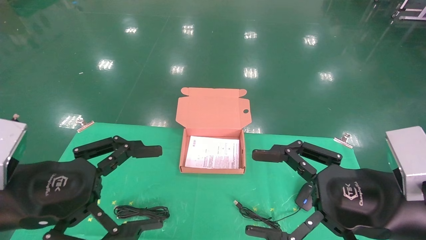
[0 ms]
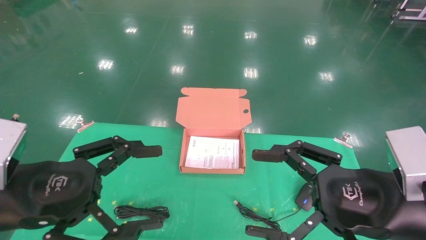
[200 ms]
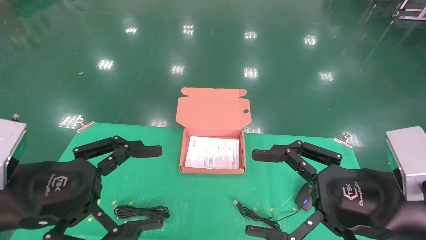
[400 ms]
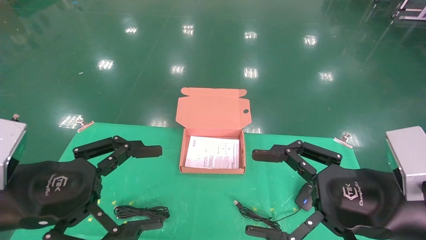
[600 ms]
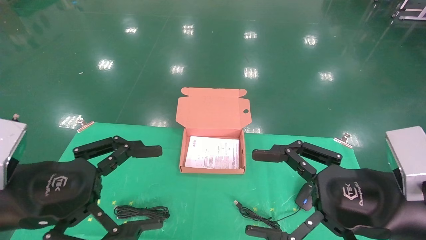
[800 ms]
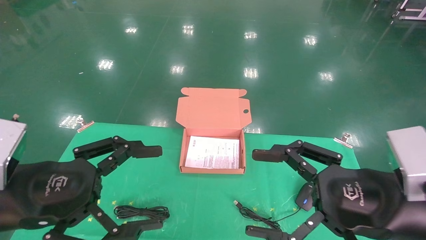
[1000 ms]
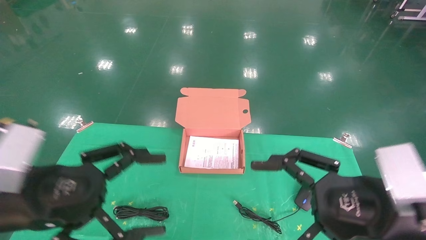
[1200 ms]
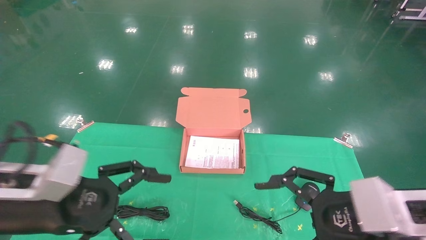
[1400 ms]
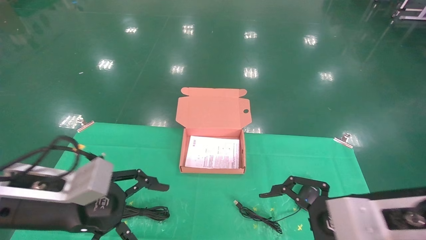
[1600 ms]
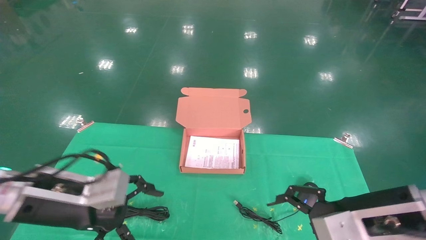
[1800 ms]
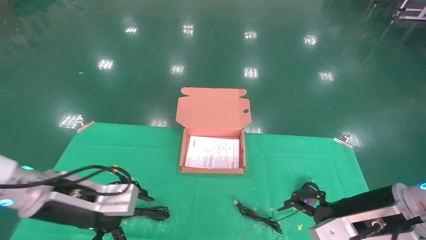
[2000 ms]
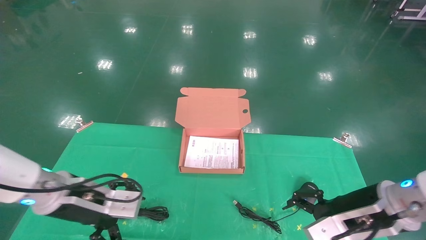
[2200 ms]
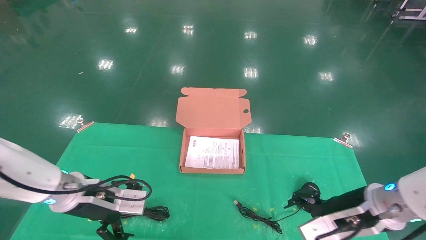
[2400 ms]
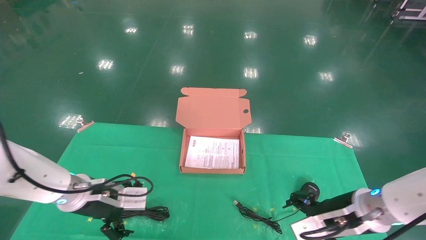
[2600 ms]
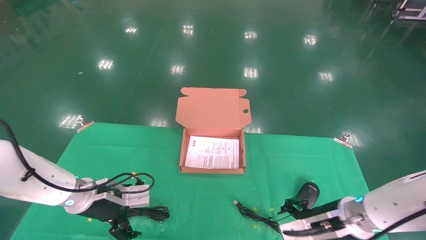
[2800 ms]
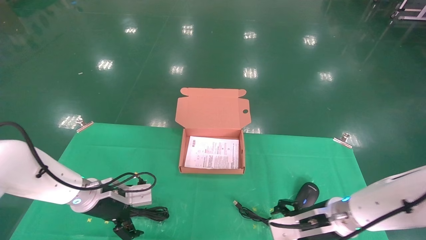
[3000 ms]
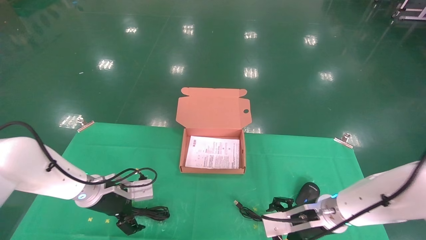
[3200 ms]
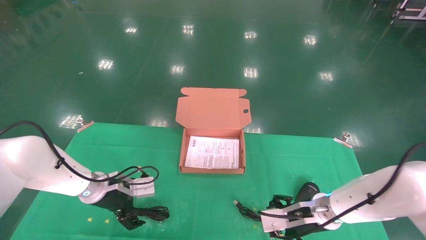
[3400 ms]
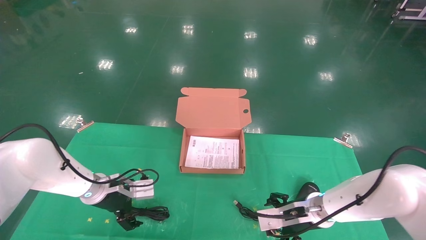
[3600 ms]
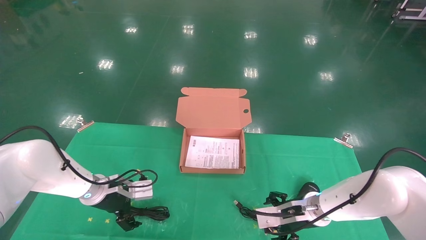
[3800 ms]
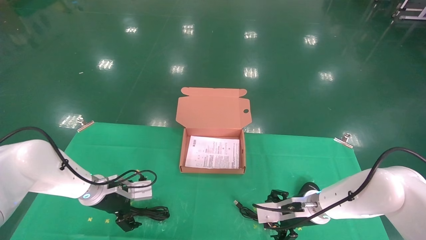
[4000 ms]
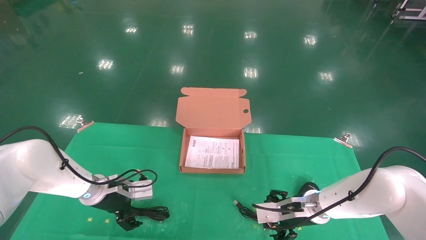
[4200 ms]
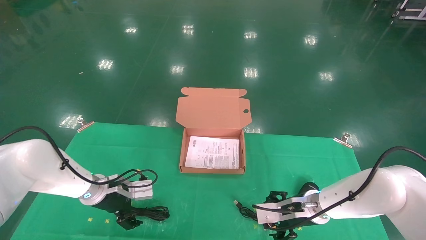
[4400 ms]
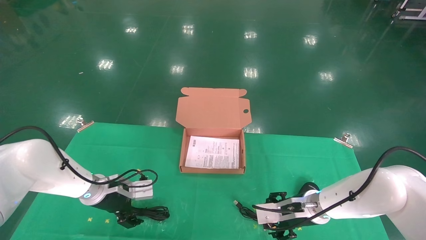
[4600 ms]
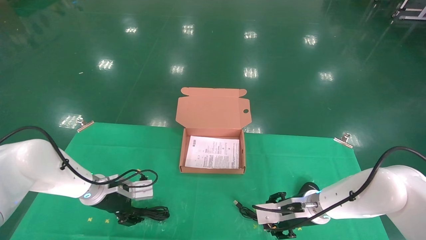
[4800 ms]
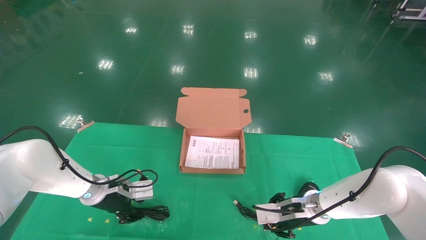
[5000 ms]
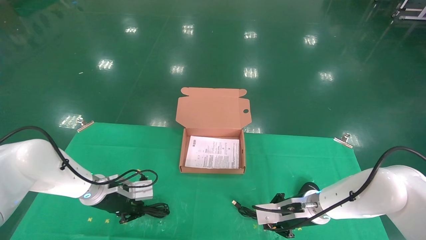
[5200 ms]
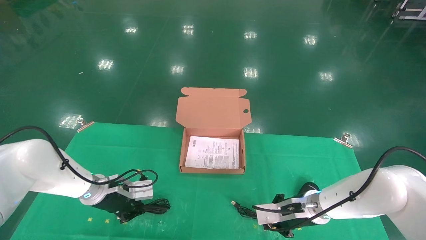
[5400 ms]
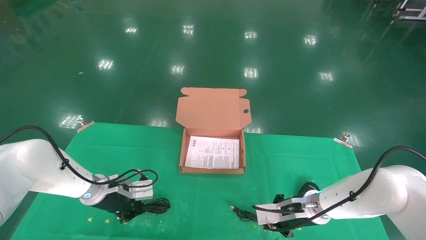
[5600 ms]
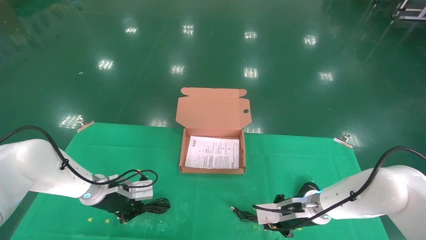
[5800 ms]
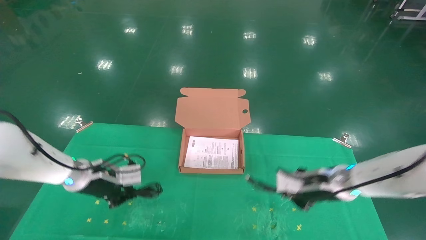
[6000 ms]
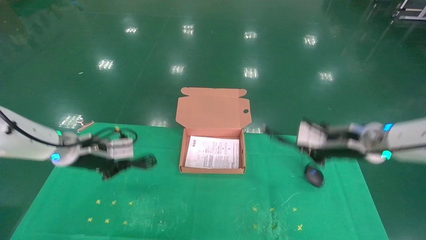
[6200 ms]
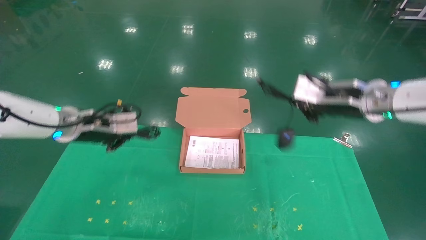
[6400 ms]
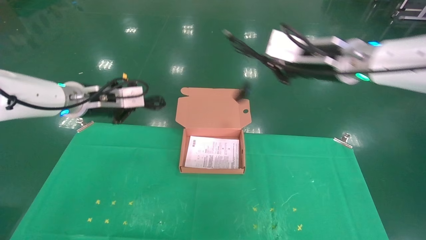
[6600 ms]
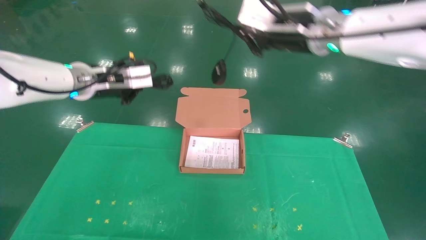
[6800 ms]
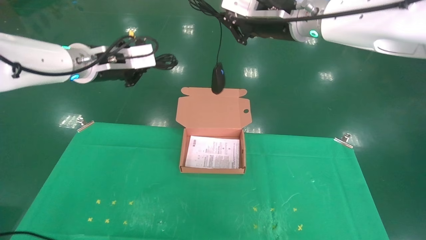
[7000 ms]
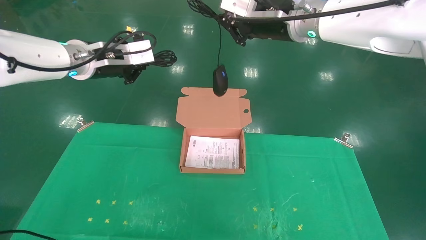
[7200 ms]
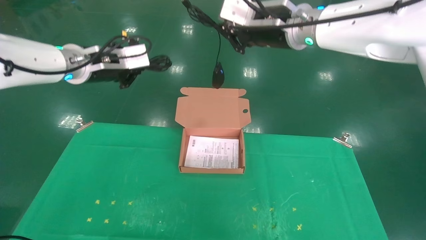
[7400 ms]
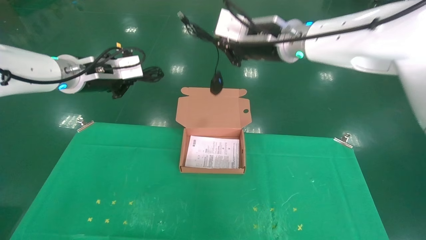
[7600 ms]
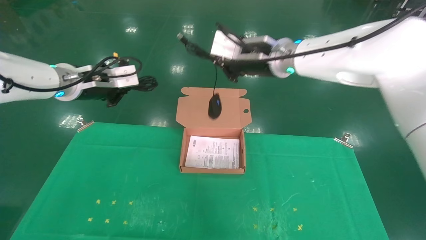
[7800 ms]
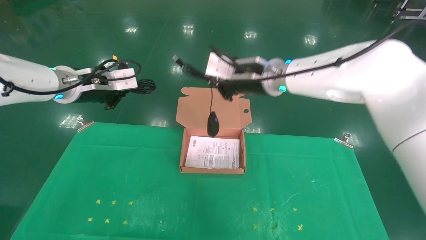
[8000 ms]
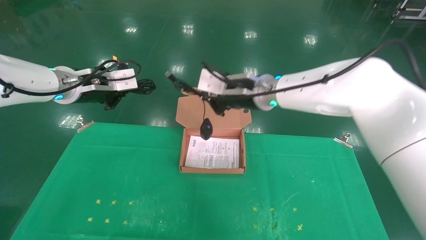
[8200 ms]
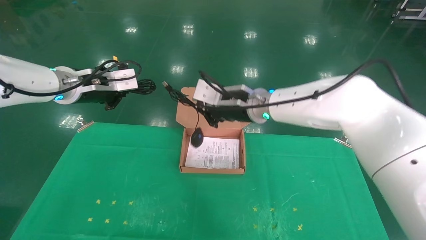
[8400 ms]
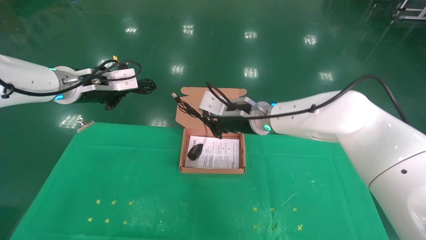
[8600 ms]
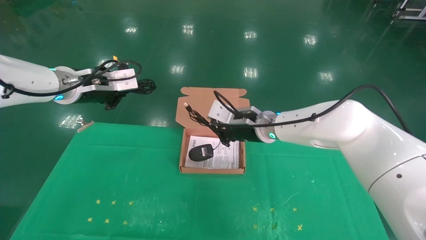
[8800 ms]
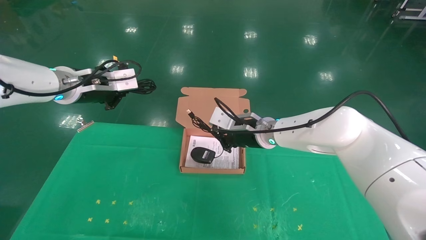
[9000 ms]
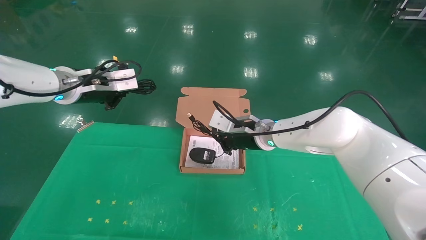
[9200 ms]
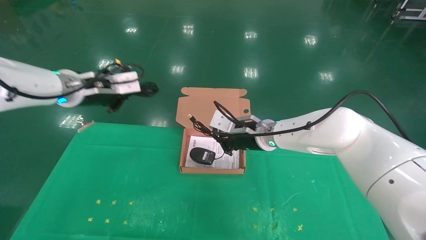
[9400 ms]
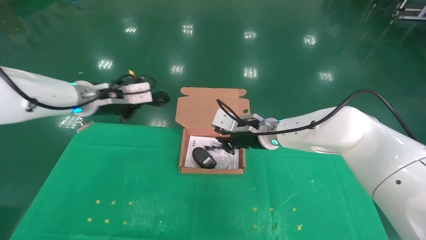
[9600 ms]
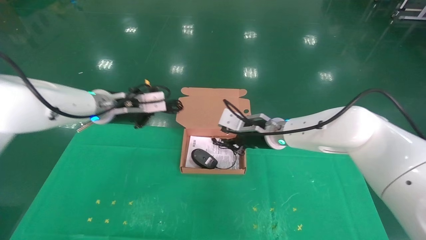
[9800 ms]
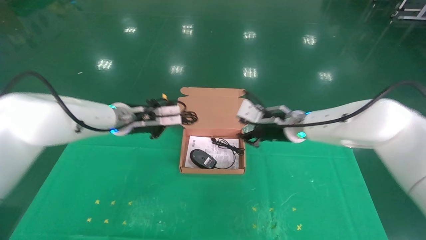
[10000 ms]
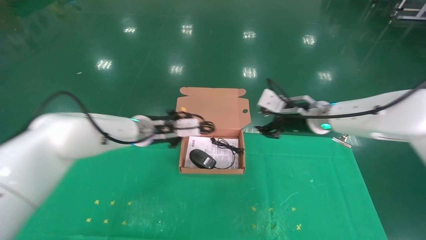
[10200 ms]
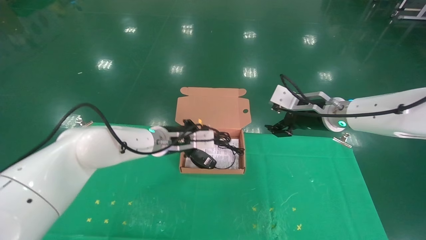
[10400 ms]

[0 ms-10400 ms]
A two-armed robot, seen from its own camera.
Task of the whole recording: grasp data cable left put into box grasp mouse right put into box.
Step, 1200 ms to 5800 ms: Grab and pick up both the mouse and power cord from the accessory packaging area at the same time.
1400 ms to 3000 ms: Both grippers travel together forward and downward, approximately 20 cm.
3000 ms to 4400 ms: The right gripper goes roughly 5 cm forward.
4400 ms to 6000 ms: The grippers both shift upward by some 10 cm. The right gripper closes up; the left gripper closes.
6000 ms to 7400 ms: The right gripper shifts roughly 30 cm upward and to the left; the left gripper moves upward, roughly 25 cm.
7400 ms to 9000 ms: The right gripper shifts approximately 20 cm downward.
9000 ms to 10400 ms: The left gripper goes approximately 20 cm to the right and downward, while the right gripper is displaced to the right by approximately 15 cm, and opens.

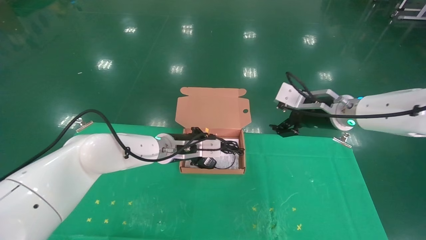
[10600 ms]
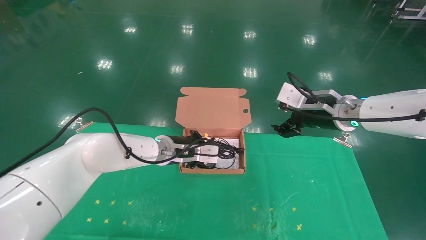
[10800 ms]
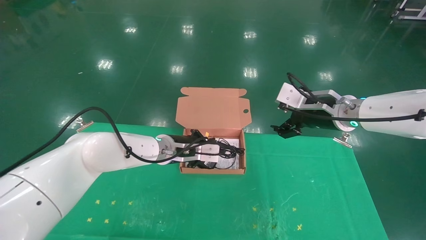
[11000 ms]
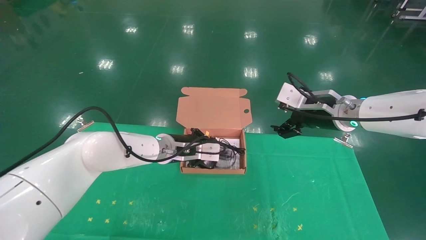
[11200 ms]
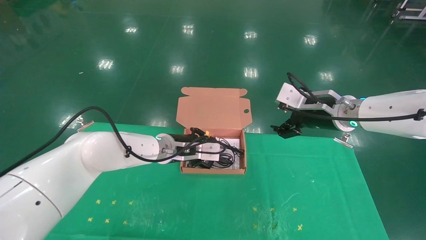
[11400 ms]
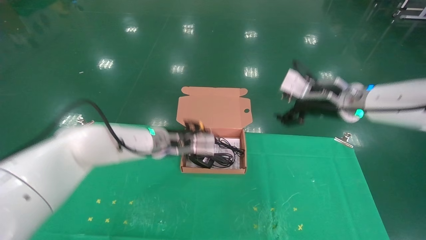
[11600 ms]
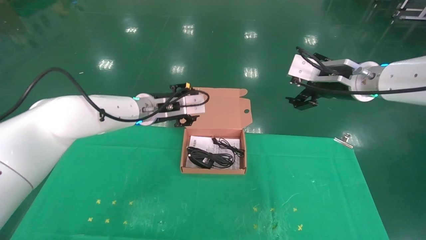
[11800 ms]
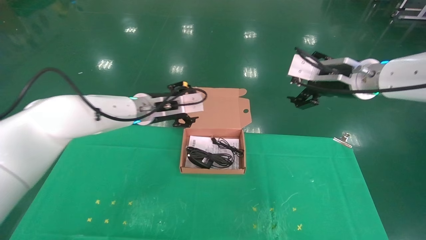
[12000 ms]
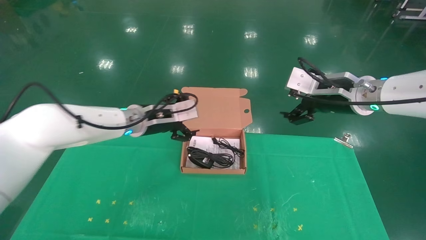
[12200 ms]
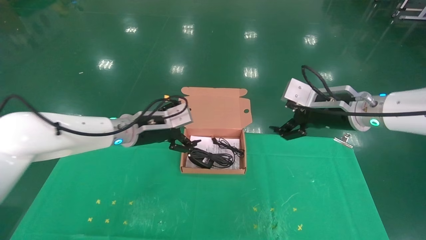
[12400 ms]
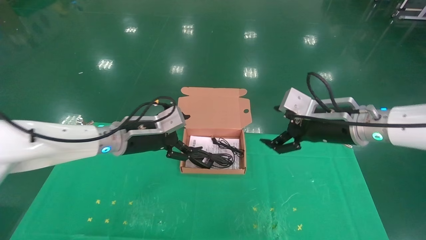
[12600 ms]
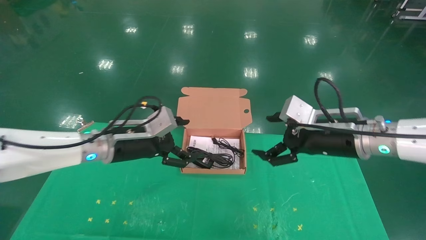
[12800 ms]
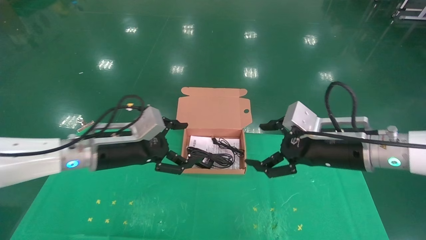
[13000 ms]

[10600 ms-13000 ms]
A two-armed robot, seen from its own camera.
Task of the whole recording: grasp data cable left put into box grasp mouse right put into box.
10600 ms to 11800 ms: The two grippers go about 5 cm upward. The left gripper opens up.
11800 ms to 13000 ms: The left gripper heads backward and to the left, covering approximately 15 cm, and opens its fingers. The right gripper moves downward and backward, approximately 10 cm.
